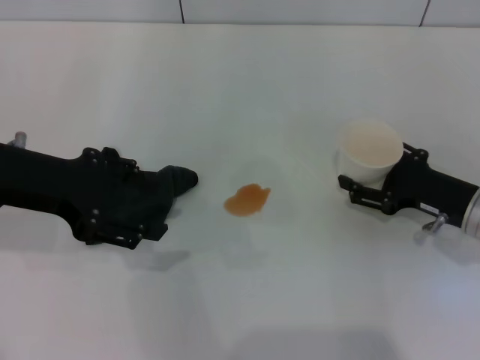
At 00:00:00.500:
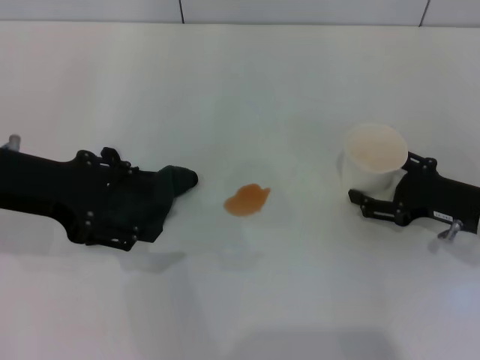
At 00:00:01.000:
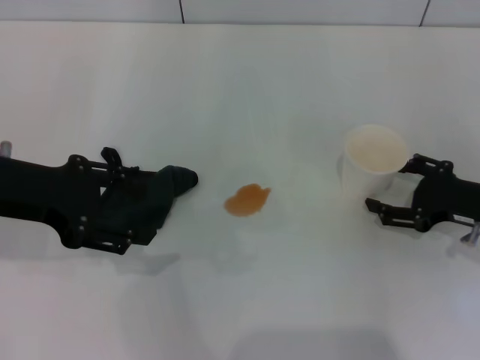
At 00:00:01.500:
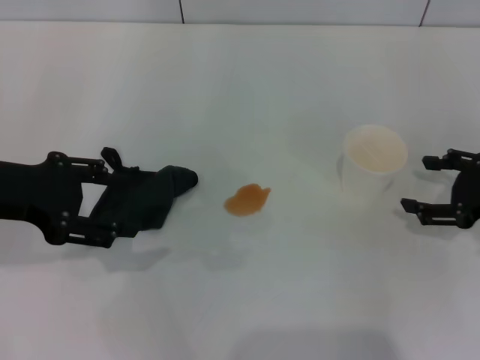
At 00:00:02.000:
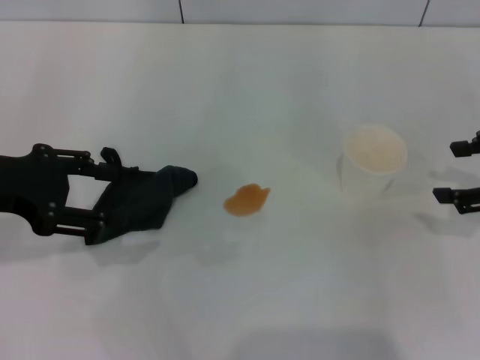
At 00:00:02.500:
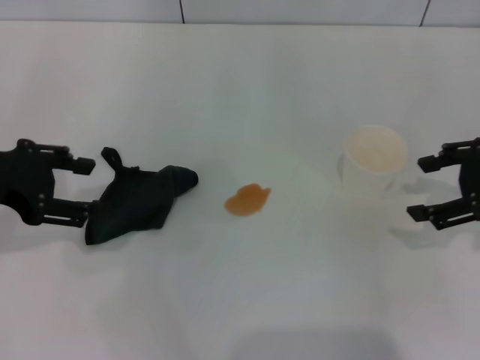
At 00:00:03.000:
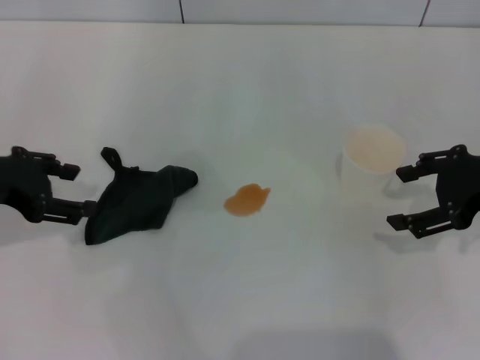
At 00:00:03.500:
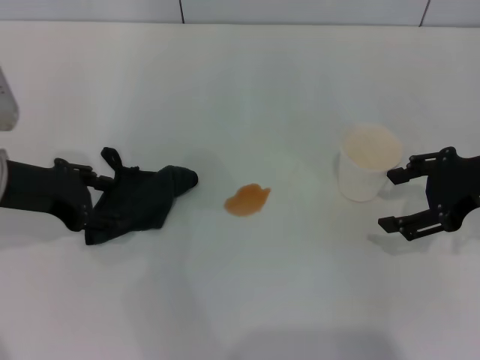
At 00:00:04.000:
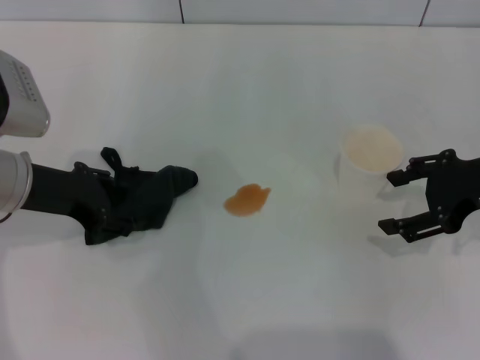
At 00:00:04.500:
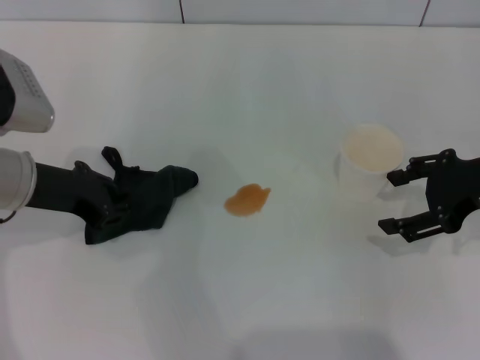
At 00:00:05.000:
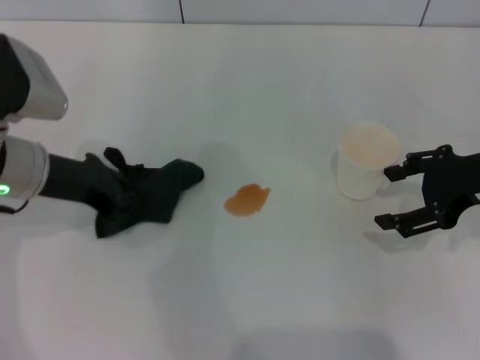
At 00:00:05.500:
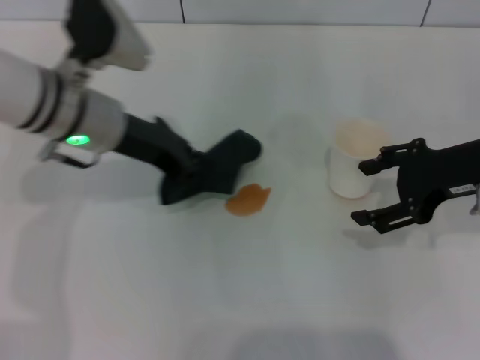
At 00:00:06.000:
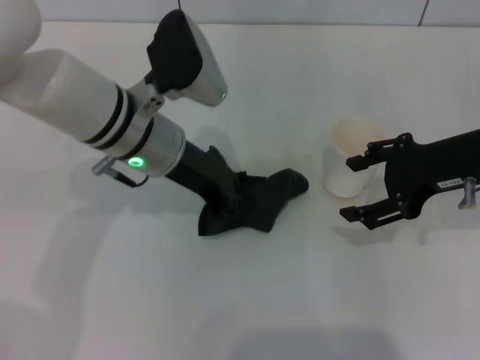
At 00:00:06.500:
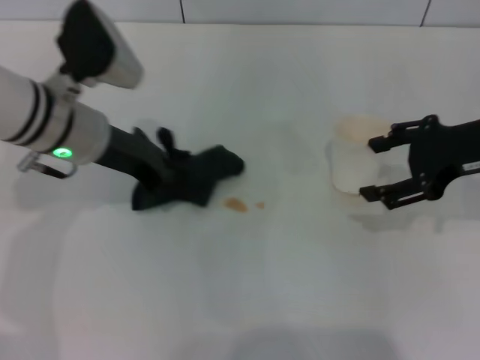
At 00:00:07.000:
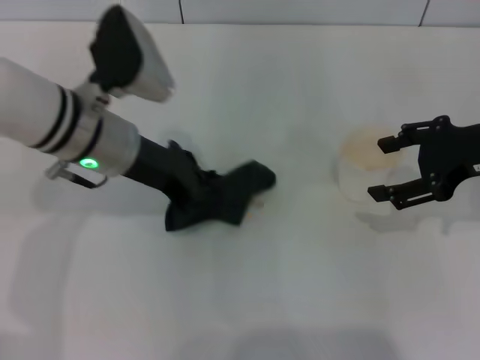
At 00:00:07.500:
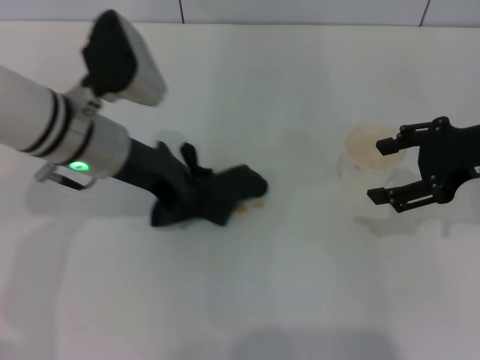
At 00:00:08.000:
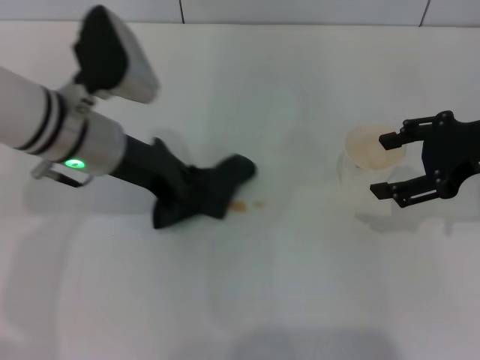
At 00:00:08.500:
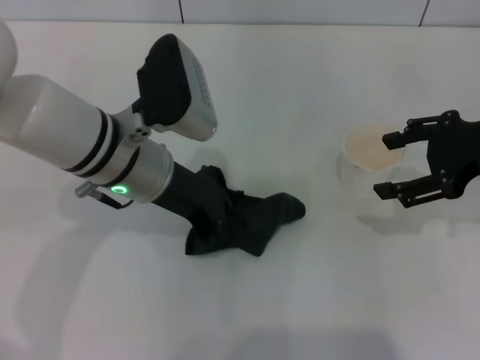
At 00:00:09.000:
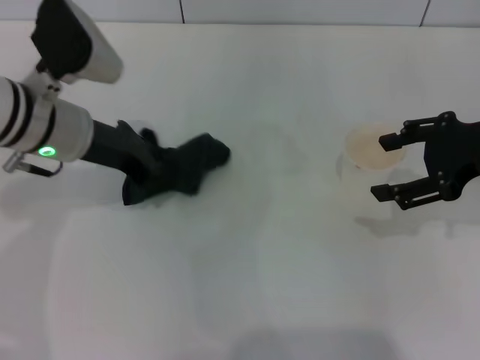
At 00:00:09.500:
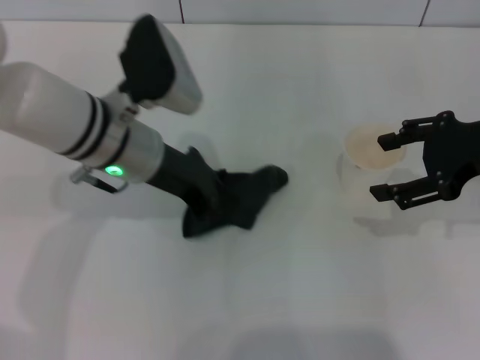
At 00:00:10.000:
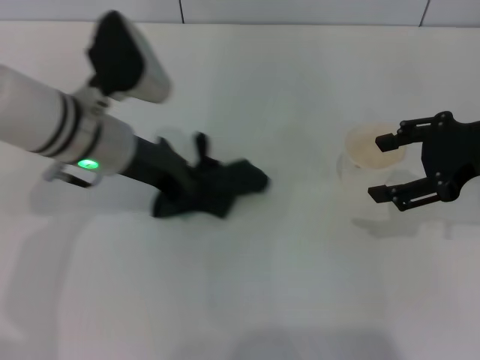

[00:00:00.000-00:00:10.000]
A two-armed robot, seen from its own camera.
Step, 00:00:01.500 to 00:00:04.500: Grasp the rag with the left gripper.
00:00:00.000 to 00:00:02.000: The right gripper is displaced upward and to the right by some 15 cm.
00:00:02.000 to 00:00:04.000: The left gripper shifts approximately 5 cm downward; the right gripper heads to the left, covering about 5 cm.
00:00:04.000 to 00:00:06.000: The left gripper is displaced to the right by approximately 15 cm, and closes up.
00:00:06.000 to 00:00:08.000: The left gripper moves to the left, roughly 5 cm.
00:00:08.000 to 00:00:10.000: The left gripper moves left and right over some 5 cm, changing direction 2 times.

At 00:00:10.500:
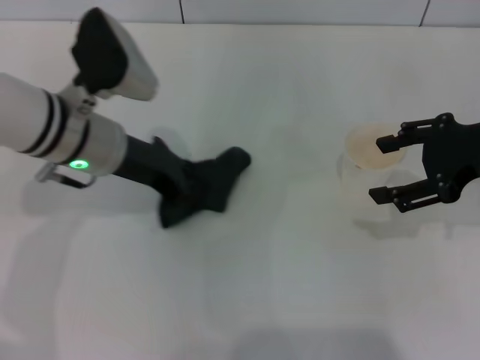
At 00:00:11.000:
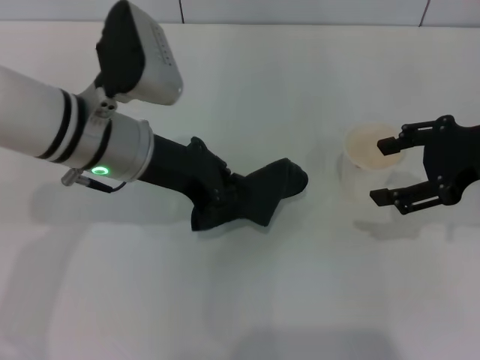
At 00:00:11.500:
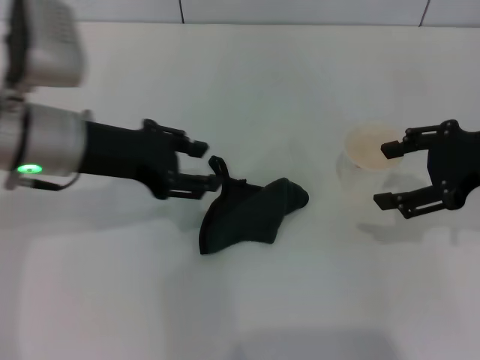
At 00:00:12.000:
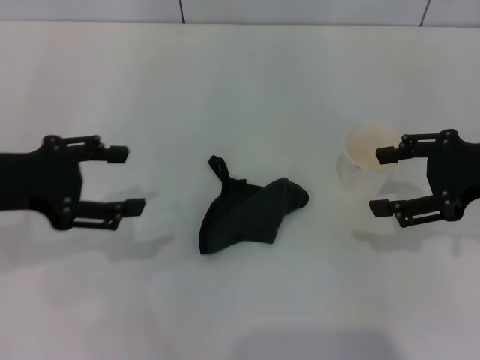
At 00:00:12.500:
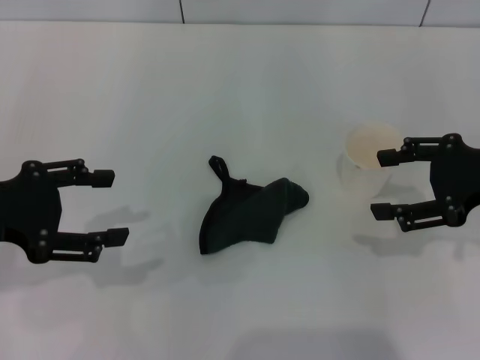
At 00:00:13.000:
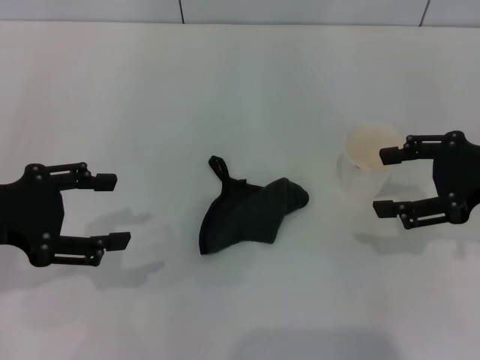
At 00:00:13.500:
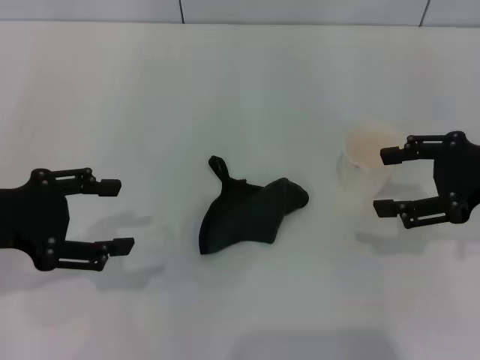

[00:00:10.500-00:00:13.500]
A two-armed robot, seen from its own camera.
Step, 00:00:11.000 to 00:00:11.500: Place the rag on the table with the left gripper.
00:00:10.500 to 00:00:12.000: The left gripper goes some 15 cm to the left and backward, and opens its fingers.
00:00:12.000 to 00:00:13.500: The grippers stay close to where they were, moving slightly.

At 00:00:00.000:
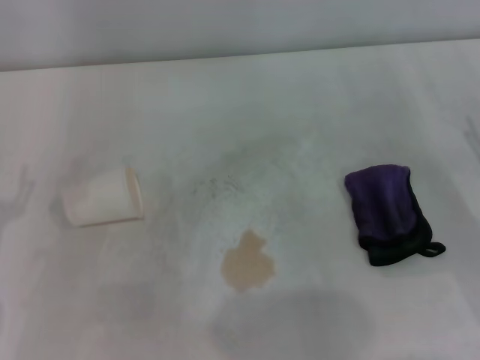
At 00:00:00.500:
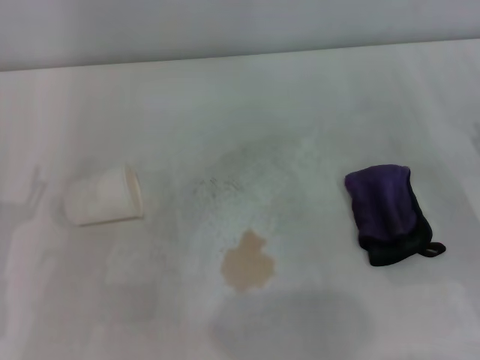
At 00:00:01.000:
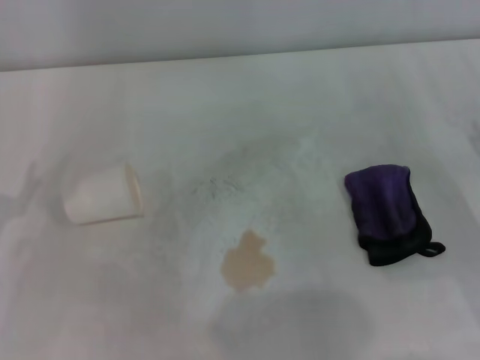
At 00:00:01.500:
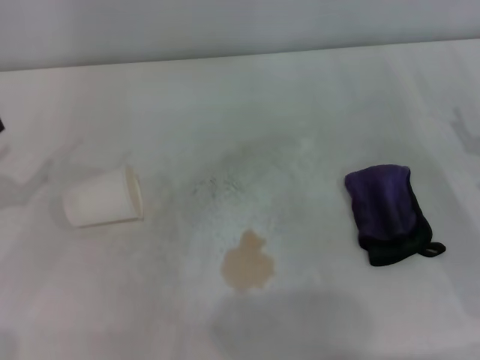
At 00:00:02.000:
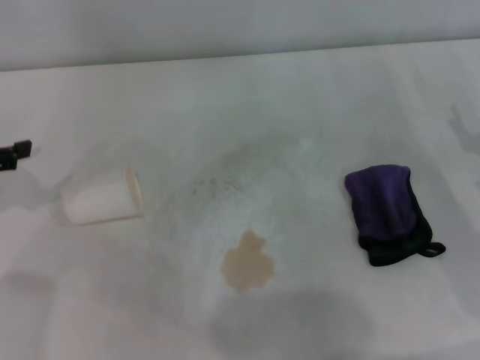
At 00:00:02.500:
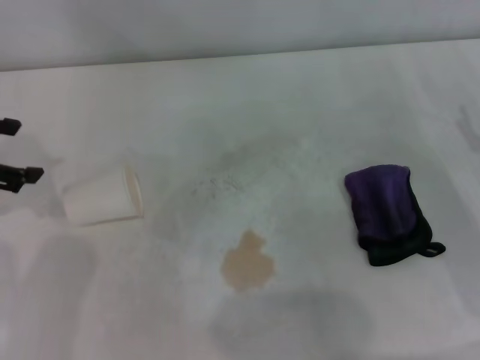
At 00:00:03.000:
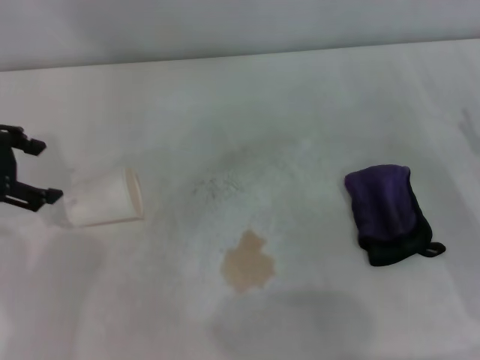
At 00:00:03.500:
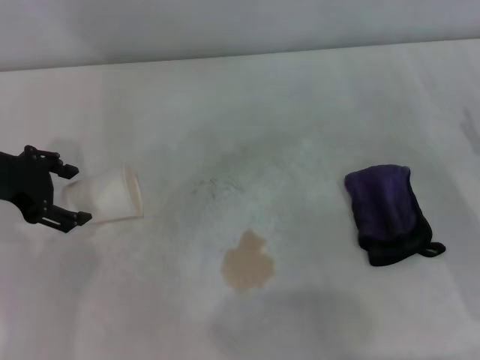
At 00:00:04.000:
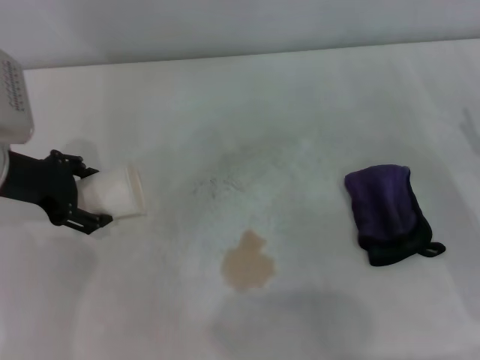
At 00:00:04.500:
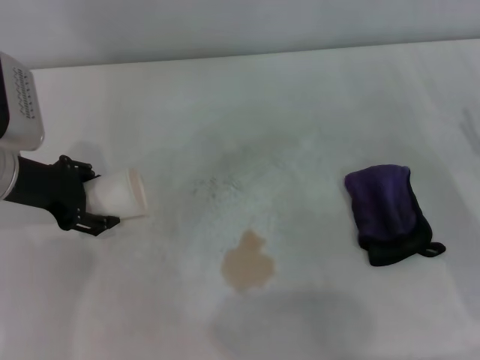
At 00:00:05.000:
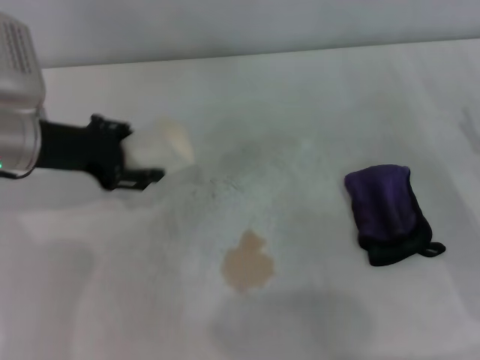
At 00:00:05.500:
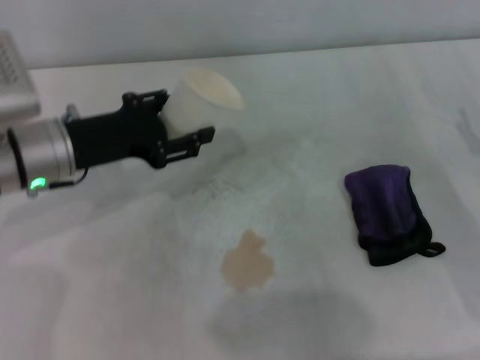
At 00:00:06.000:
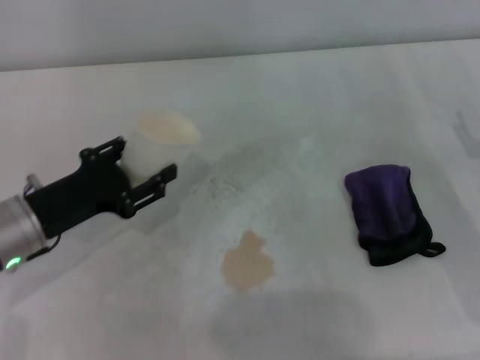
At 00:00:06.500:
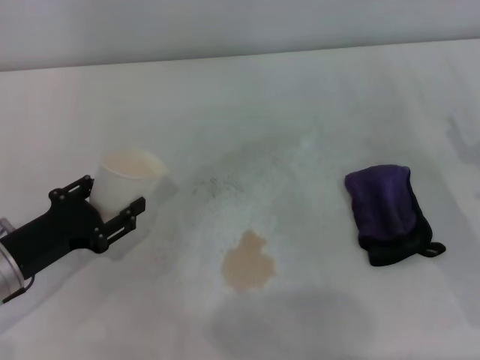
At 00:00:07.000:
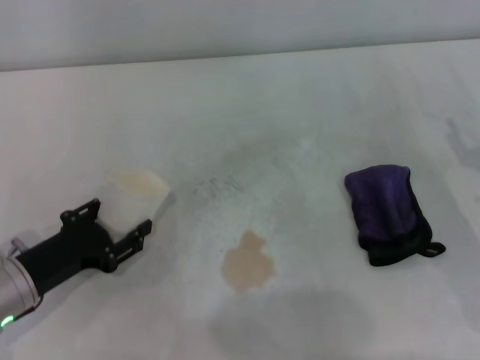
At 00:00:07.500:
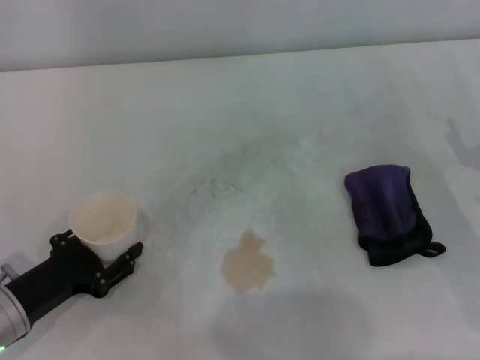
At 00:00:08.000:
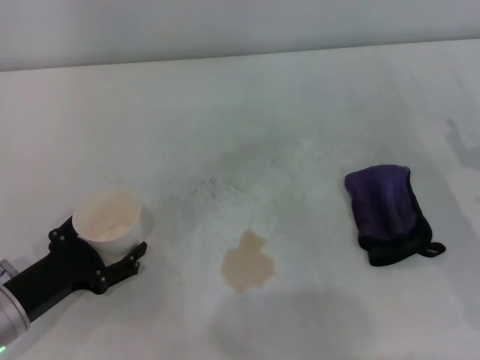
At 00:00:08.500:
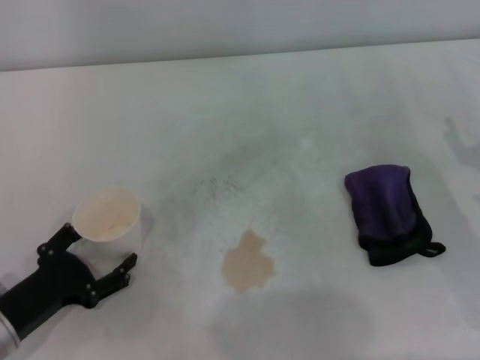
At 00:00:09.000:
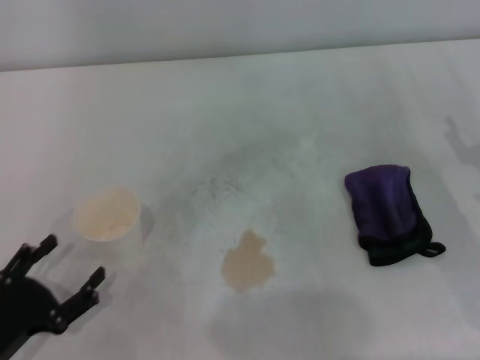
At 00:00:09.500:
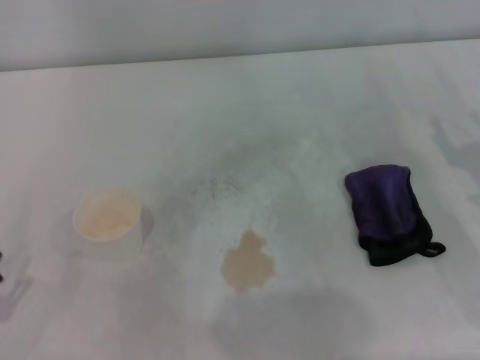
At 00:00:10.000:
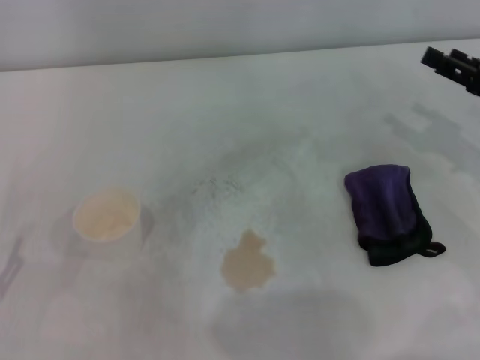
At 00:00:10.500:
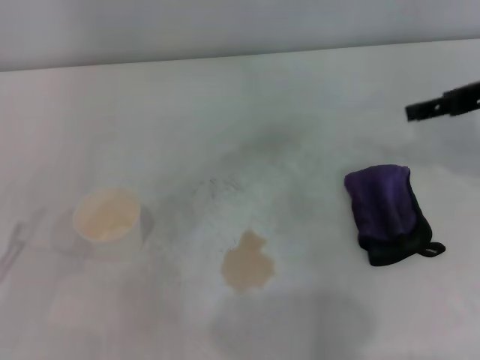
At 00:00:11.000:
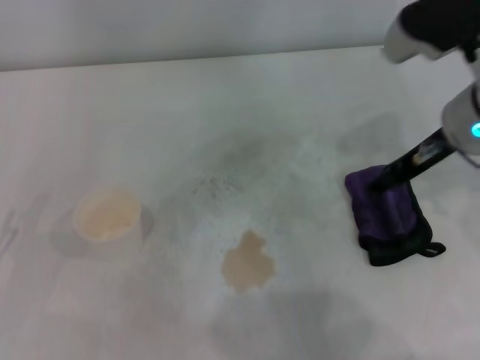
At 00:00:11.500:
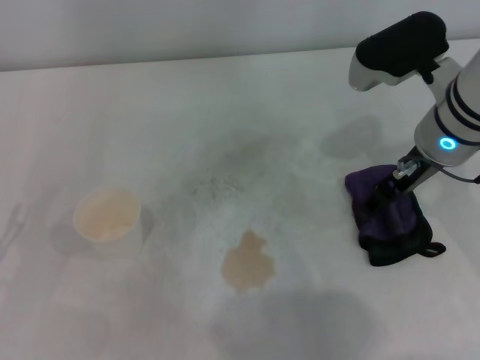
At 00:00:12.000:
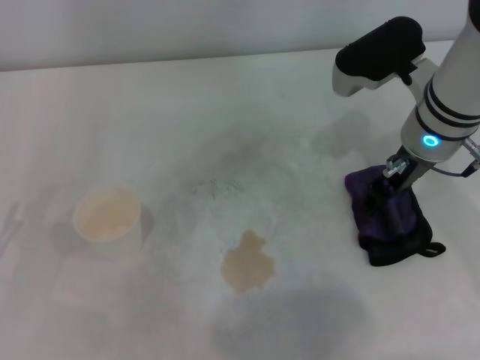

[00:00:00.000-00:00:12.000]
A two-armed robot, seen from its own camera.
Step, 00:00:00.000 to 00:00:04.000: Grasp the paper cup with the left gripper.
Step, 00:00:05.000 to 00:00:07.500: Stand the paper cup upright with the left gripper.
00:00:02.000 to 00:00:04.000: The left gripper moves to the right, roughly 10 cm.
00:00:04.000 to 00:00:06.000: The left gripper goes some 10 cm backward and downward, and closes.
00:00:06.000 to 00:00:08.000: The left gripper shifts some 10 cm backward and downward, and opens up.
00:00:08.000 to 00:00:10.000: The right gripper travels upward and forward by some 10 cm. Meanwhile the left gripper heads backward and to the left, covering roughly 10 cm, and opens.
00:00:10.000 to 00:00:12.000: The right gripper shifts roughly 15 cm to the left.
